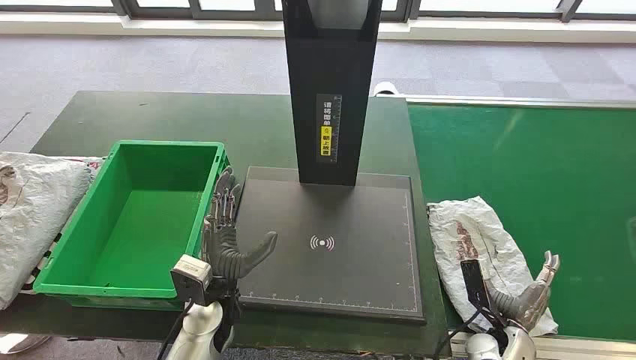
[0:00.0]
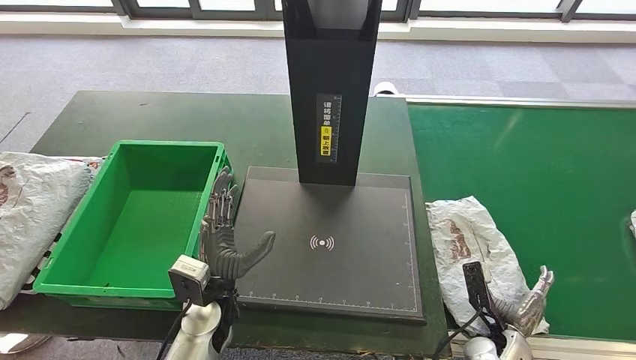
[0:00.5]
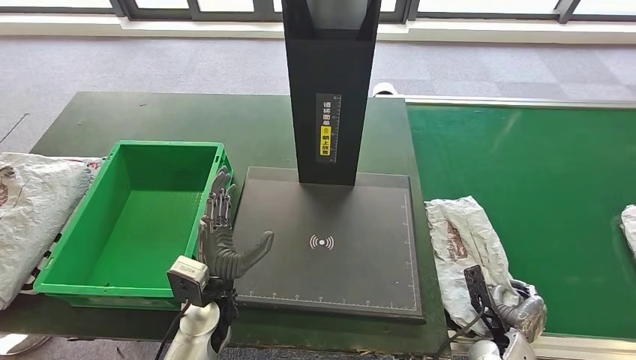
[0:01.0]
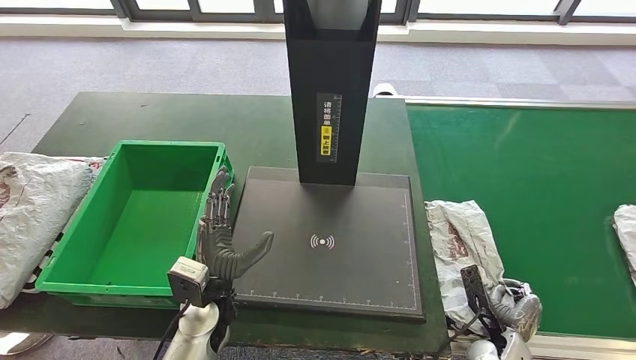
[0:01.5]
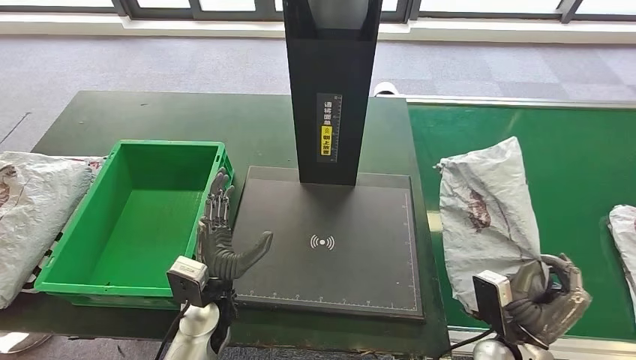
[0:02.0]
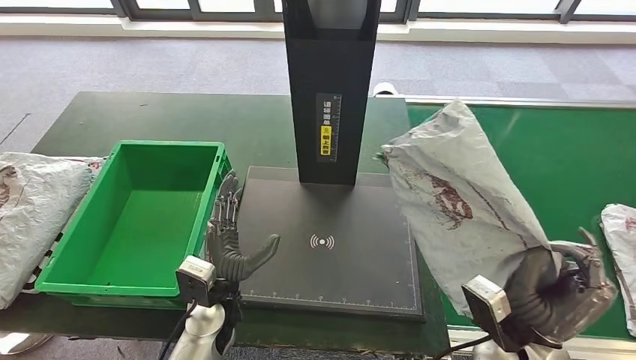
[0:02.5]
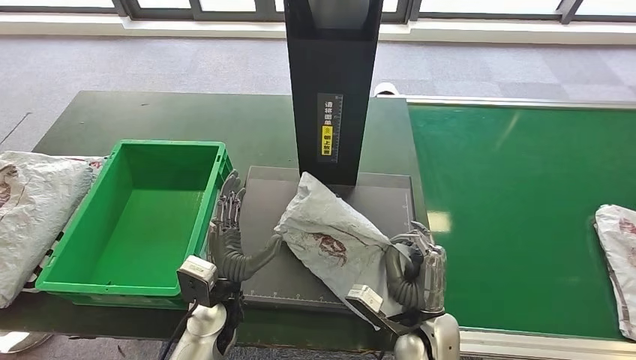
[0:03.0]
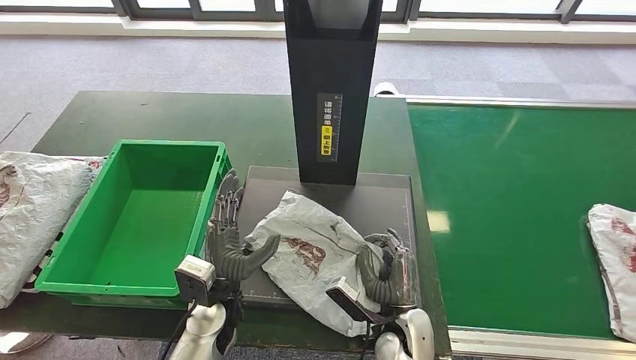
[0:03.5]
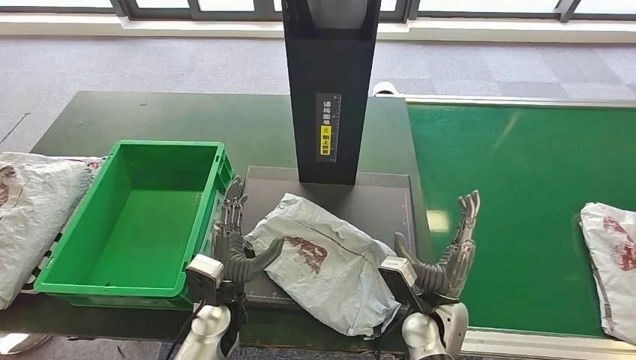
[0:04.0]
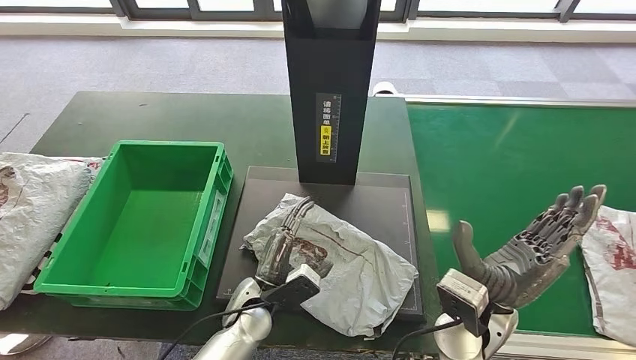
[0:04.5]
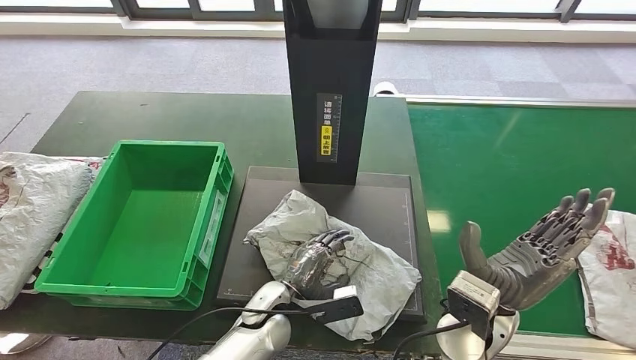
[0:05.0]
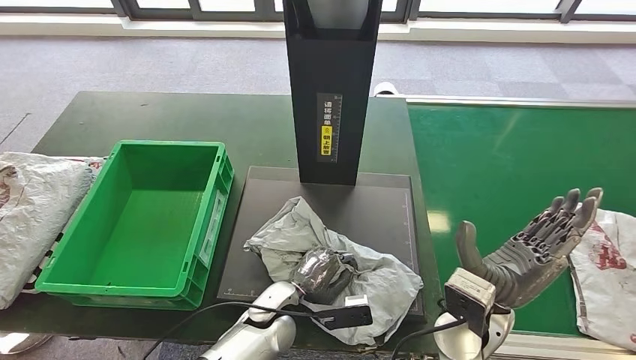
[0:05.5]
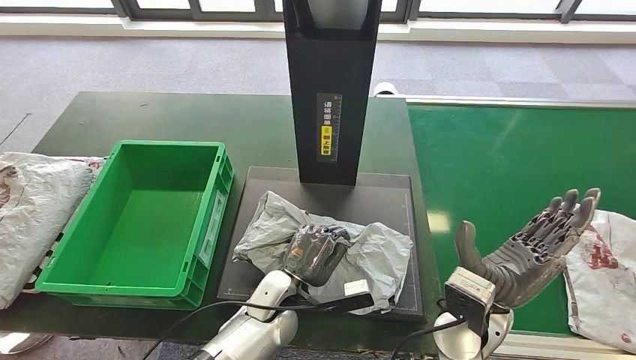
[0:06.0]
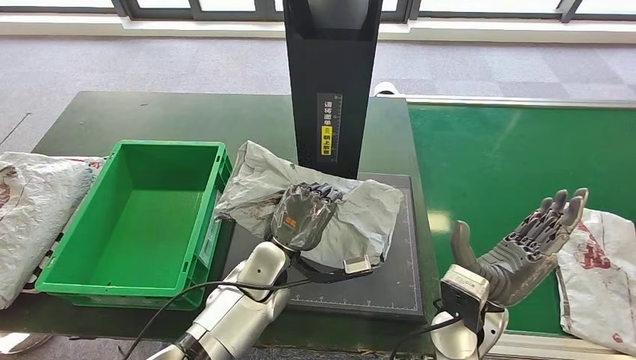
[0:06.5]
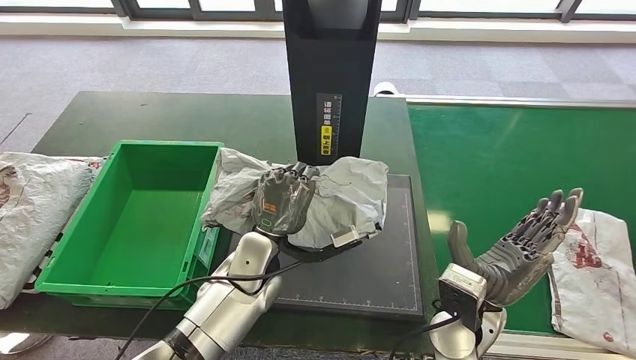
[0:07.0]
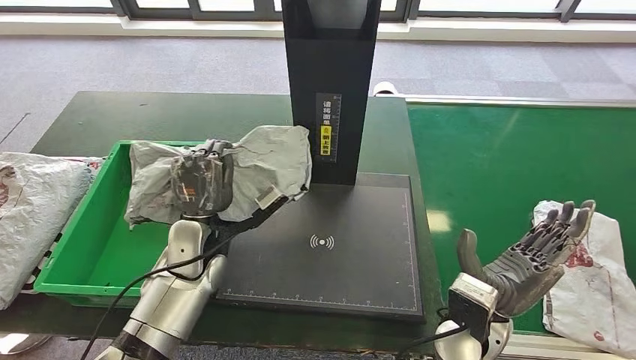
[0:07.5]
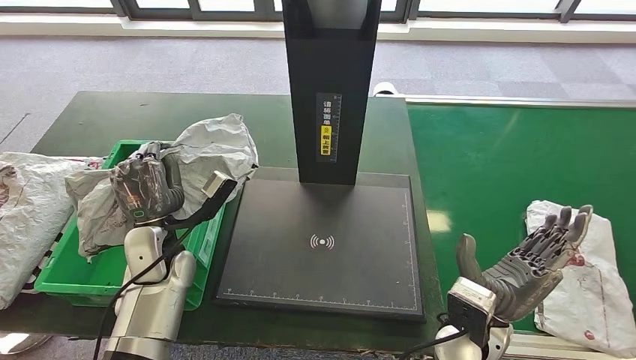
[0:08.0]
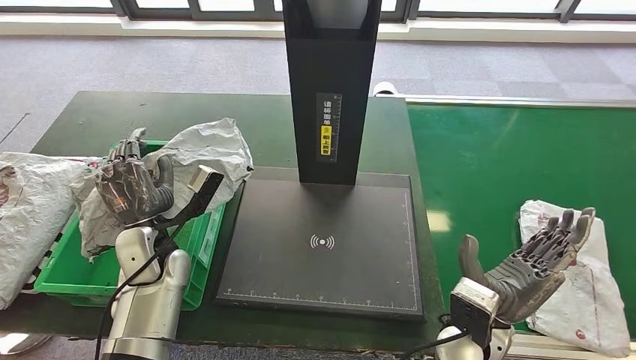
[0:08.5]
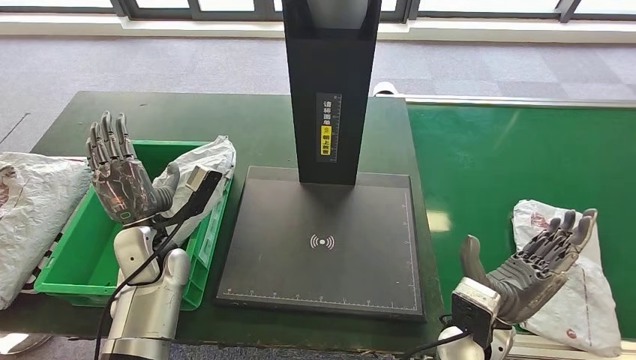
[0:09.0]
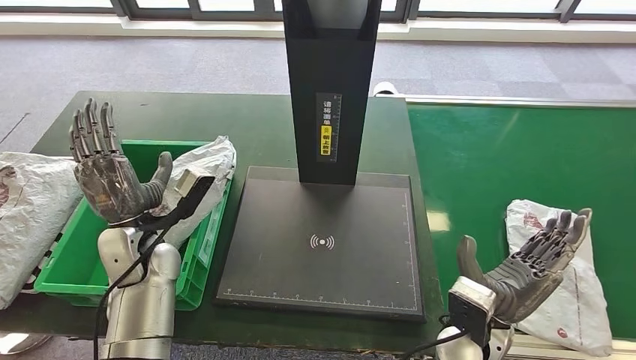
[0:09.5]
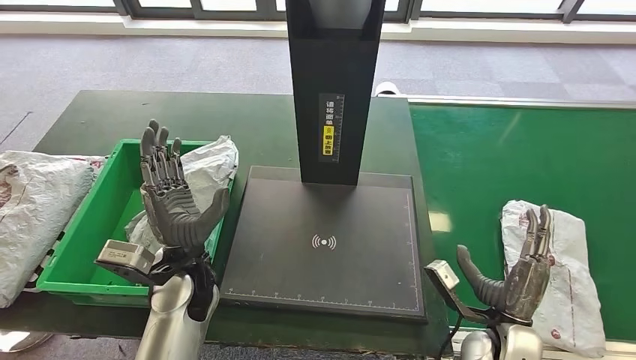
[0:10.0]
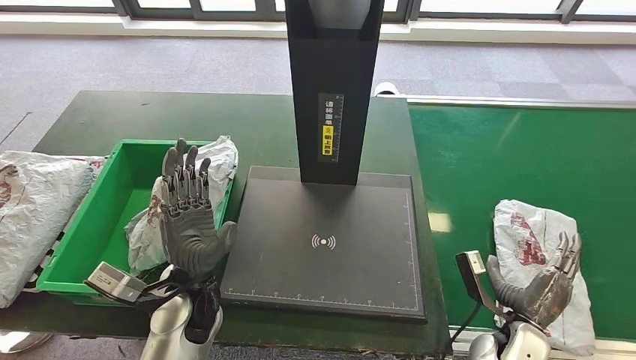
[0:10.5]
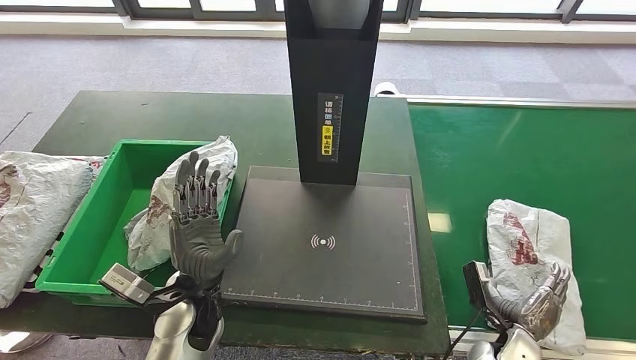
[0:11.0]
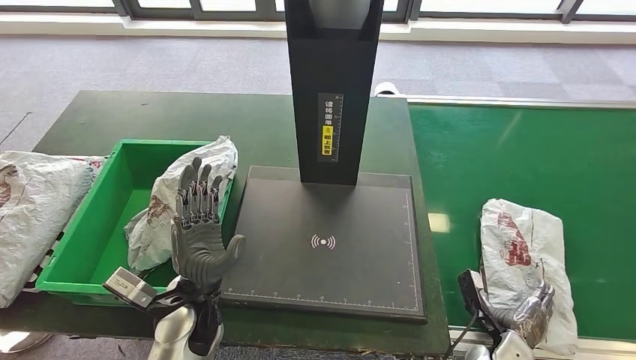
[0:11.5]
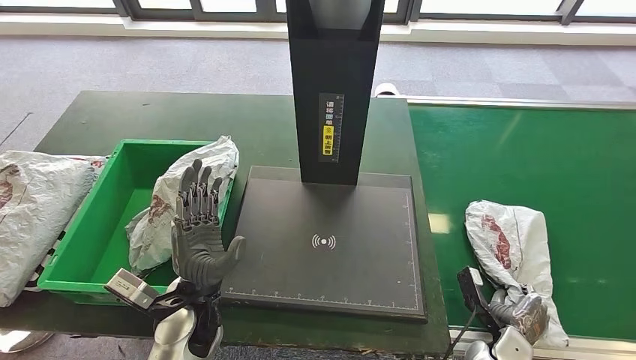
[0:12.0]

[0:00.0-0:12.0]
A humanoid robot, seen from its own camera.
Step, 0:00.0 to 0:02.5: Take the parcel off the conveyor belt.
Step, 0:03.0 to 0:06.0: Place the parcel onto the inbound machine.
Step, 0:07.0 to 0:07.5: Pick up the parcel from the inbound machine.
Step, 0:08.0 to 0:09.5: Put the parcel inside the courier box.
0:04.0 to 0:06.0: The left hand goes approximately 10 cm to the right, while the right hand heads upward, covering approximately 10 cm.
0:10.0 to 0:12.0: The right hand goes about 10 cm downward. Meanwhile the left hand shifts by roughly 5 cm.

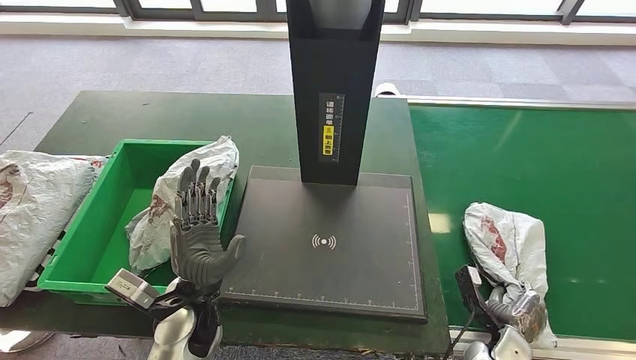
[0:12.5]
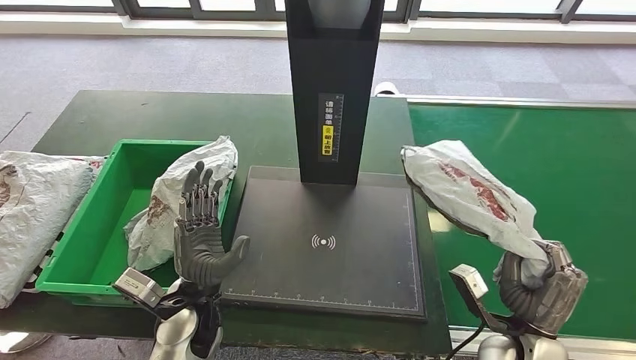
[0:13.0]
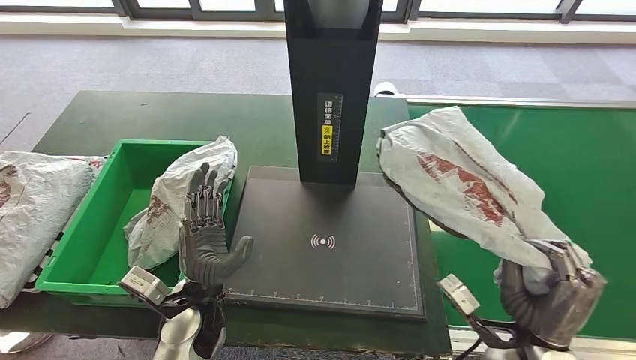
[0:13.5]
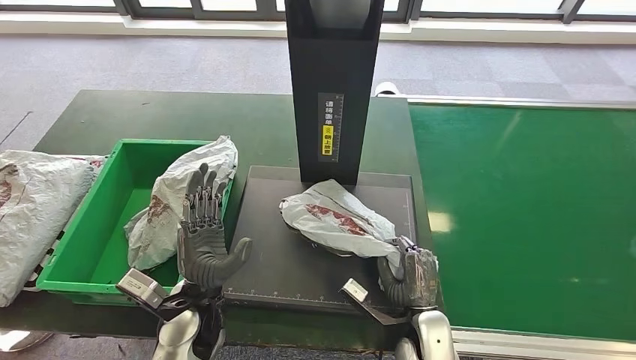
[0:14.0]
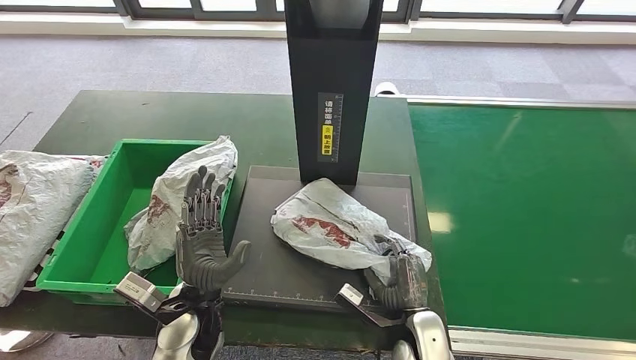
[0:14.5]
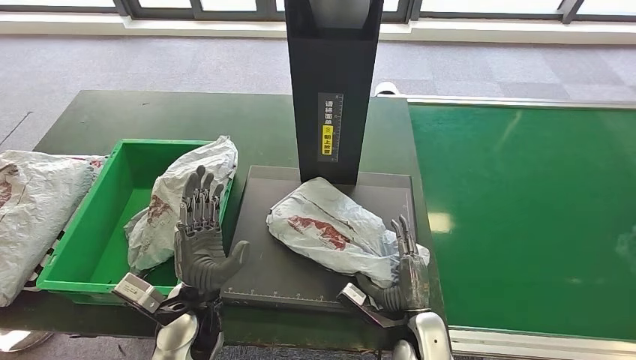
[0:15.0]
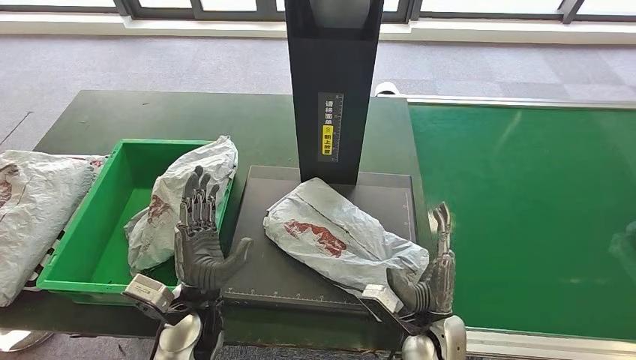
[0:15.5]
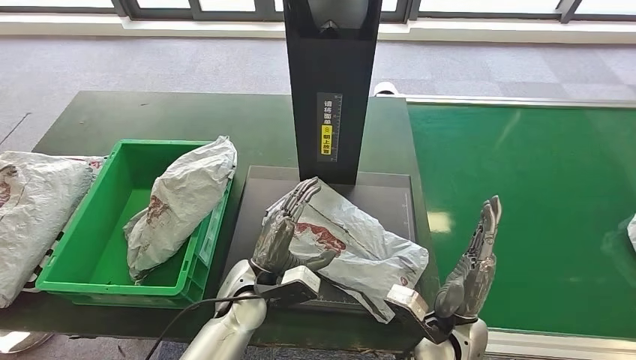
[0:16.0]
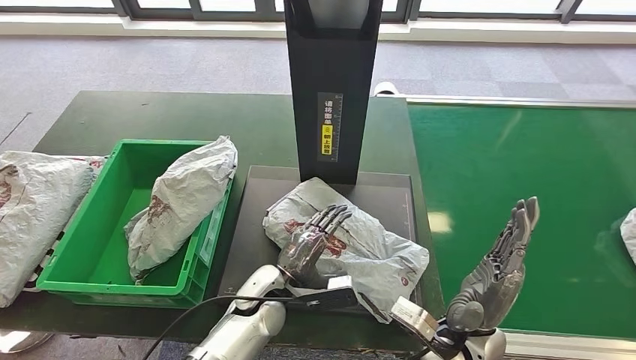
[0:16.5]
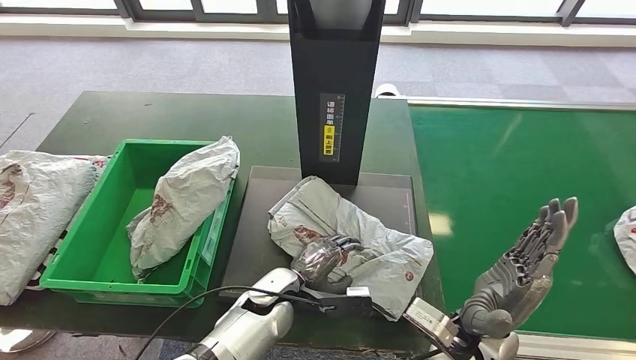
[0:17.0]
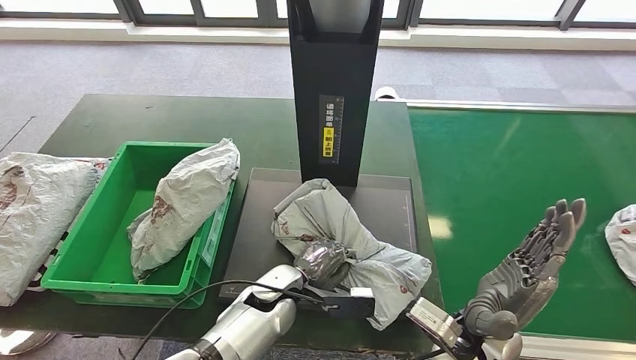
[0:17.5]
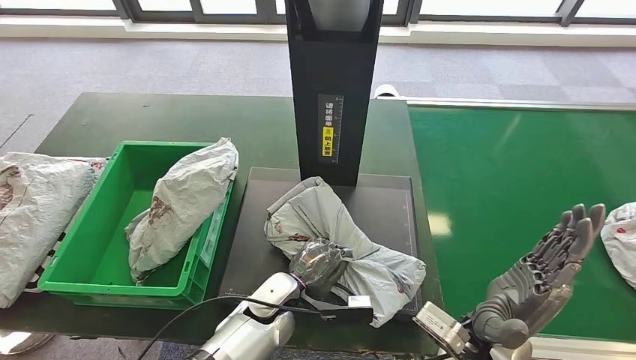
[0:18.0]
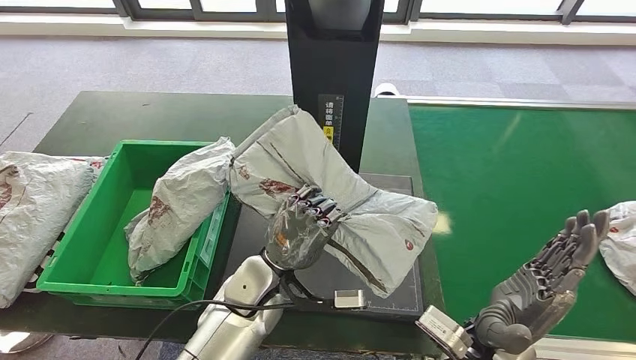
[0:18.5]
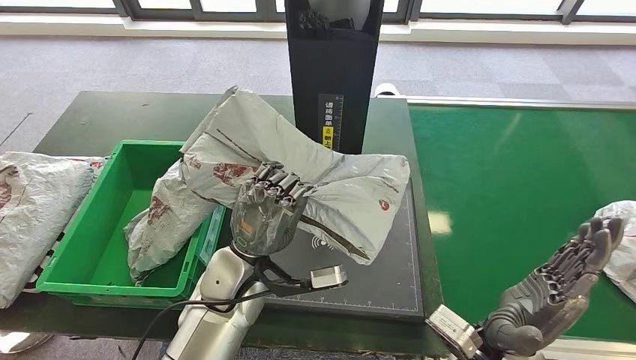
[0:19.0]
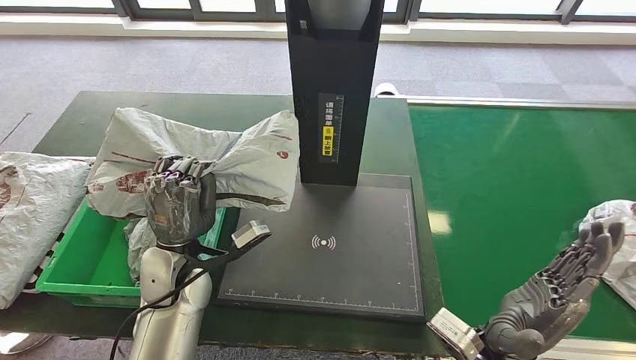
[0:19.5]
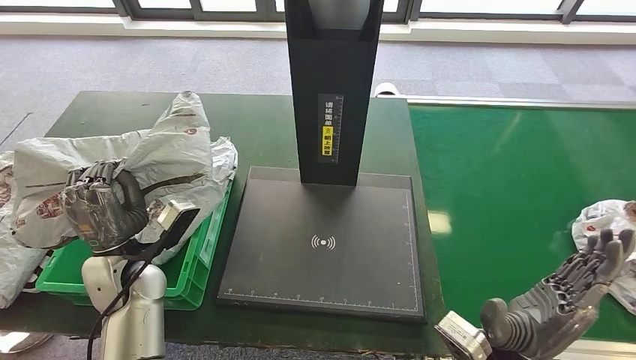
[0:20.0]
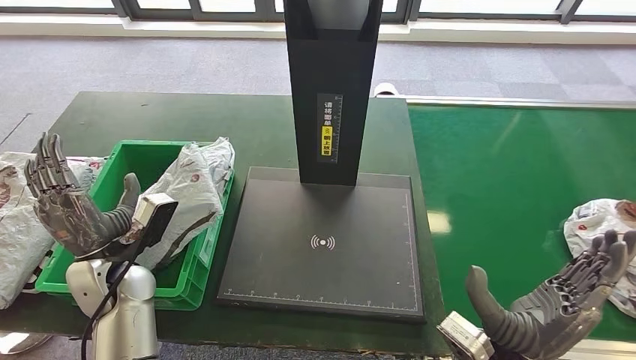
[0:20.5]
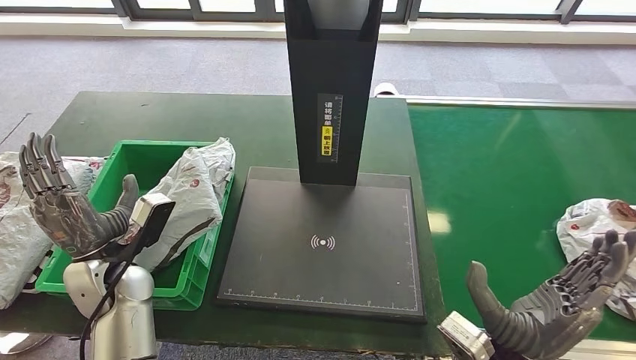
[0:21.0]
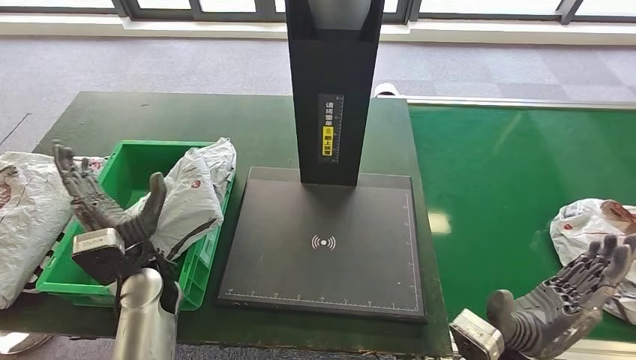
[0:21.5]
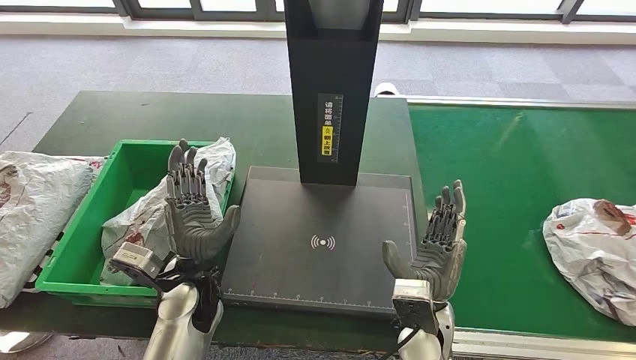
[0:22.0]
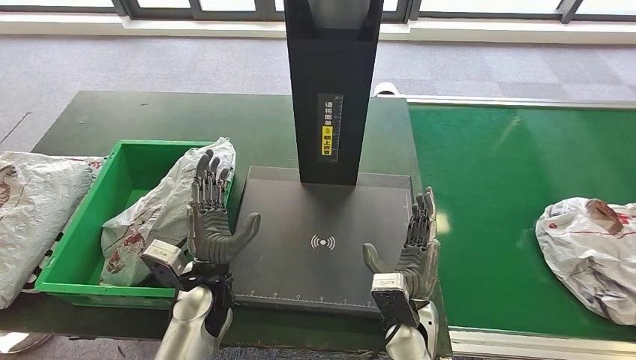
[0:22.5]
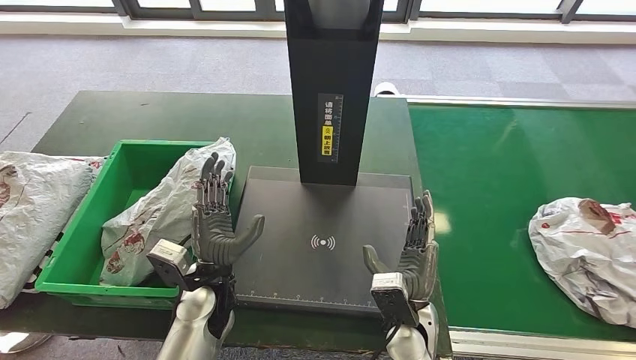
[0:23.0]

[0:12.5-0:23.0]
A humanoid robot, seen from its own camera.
Step, 0:13.5 to 0:15.5: Place the parcel onto the inbound machine.
Step, 0:16.0 to 0:18.5: Pick up the parcel from the inbound machine.
Step, 0:19.0 to 0:20.5: Place the parcel into the delivery box.
0:12.5 to 0:14.5: The right hand shifts roughly 15 cm to the left, and reaches about 15 cm upward, then returns.
0:14.5 to 0:16.5: The right hand moves upward, about 10 cm. The left hand moves to the right, approximately 10 cm.
